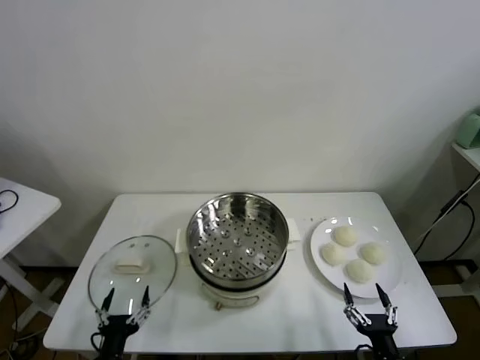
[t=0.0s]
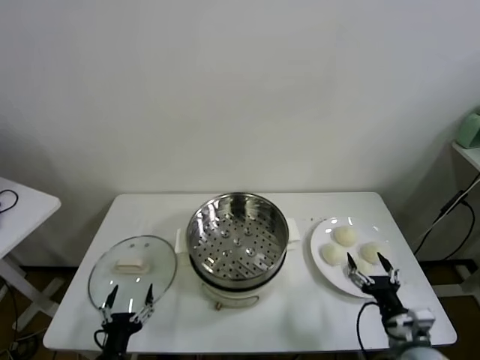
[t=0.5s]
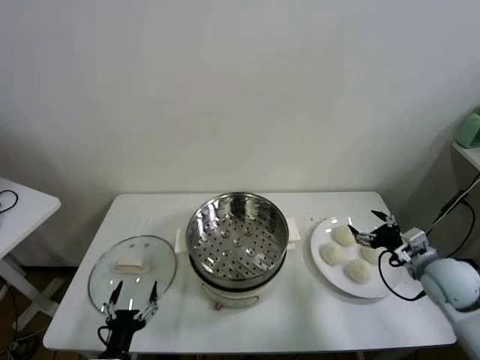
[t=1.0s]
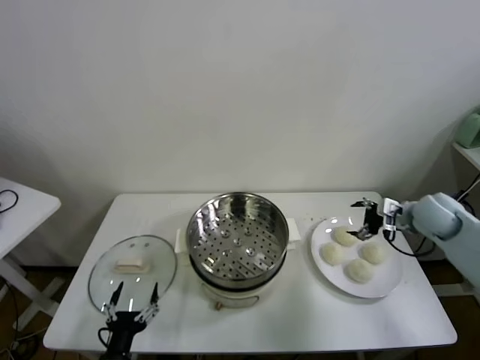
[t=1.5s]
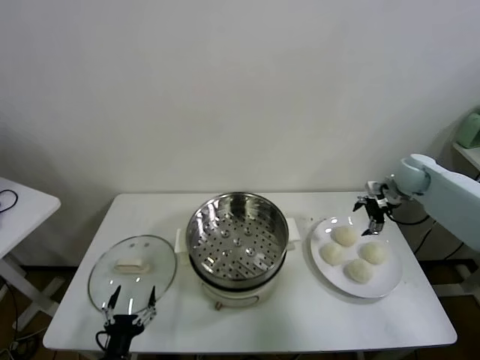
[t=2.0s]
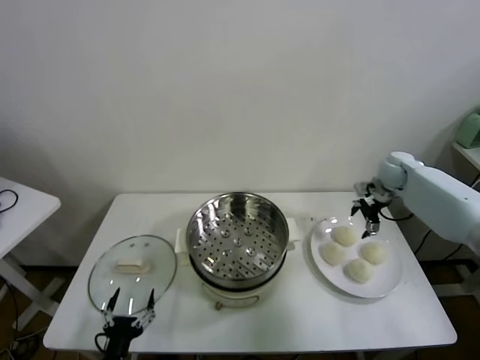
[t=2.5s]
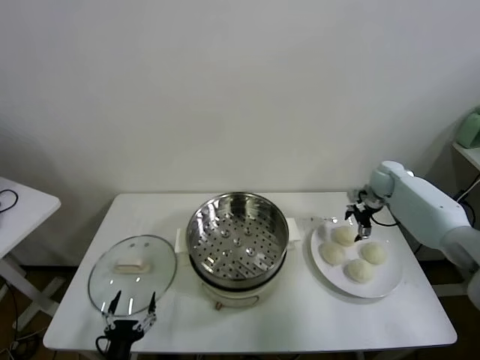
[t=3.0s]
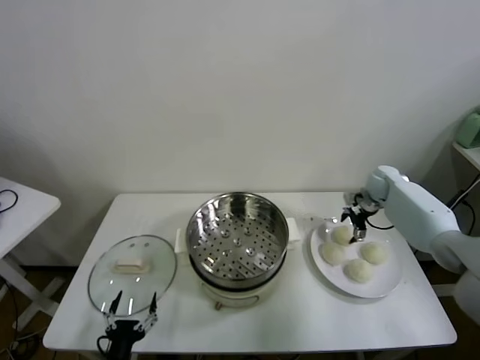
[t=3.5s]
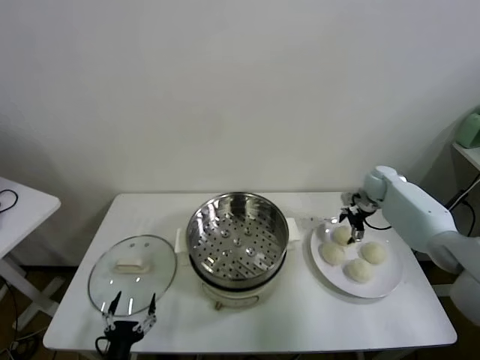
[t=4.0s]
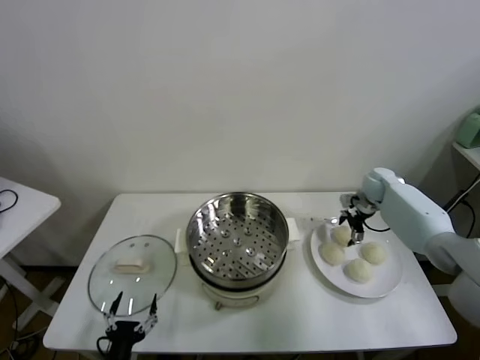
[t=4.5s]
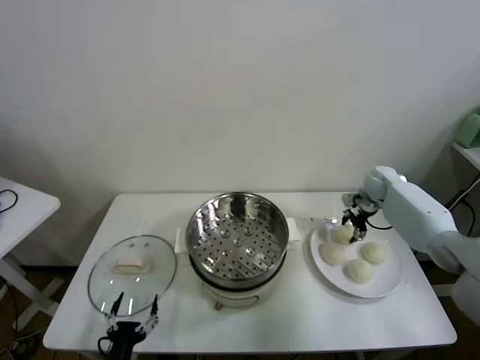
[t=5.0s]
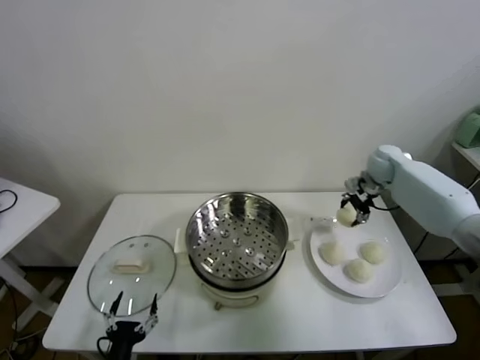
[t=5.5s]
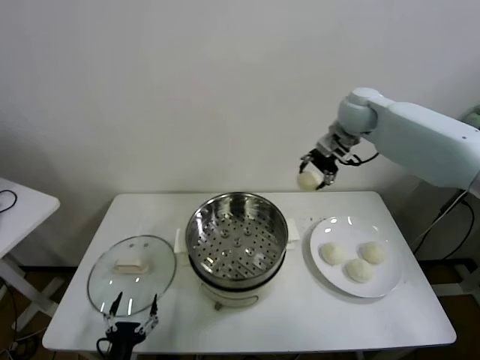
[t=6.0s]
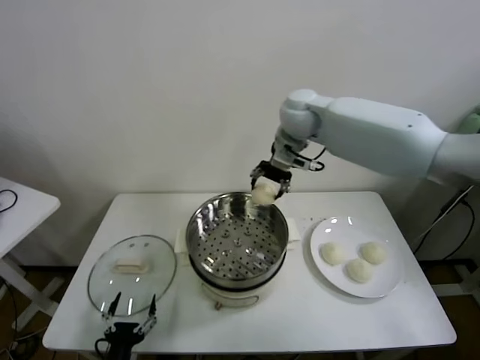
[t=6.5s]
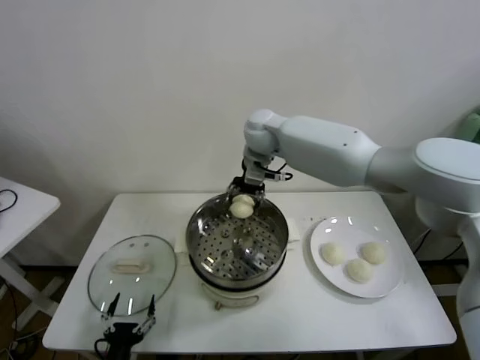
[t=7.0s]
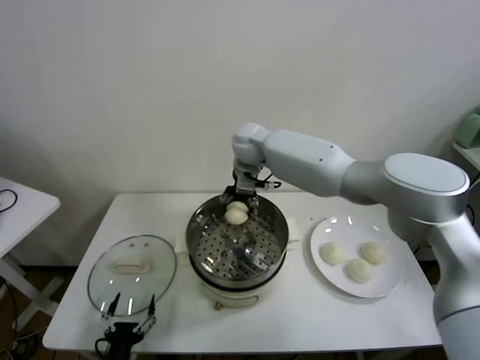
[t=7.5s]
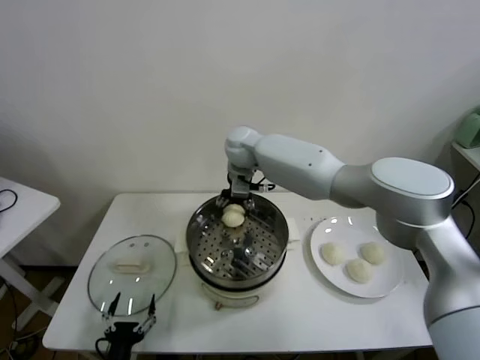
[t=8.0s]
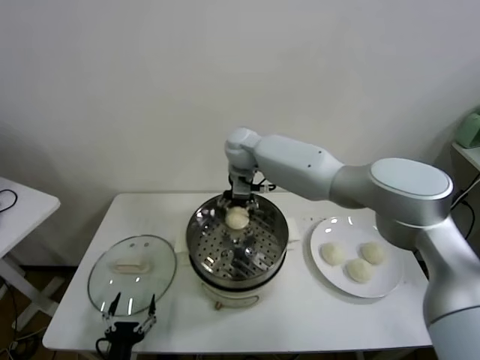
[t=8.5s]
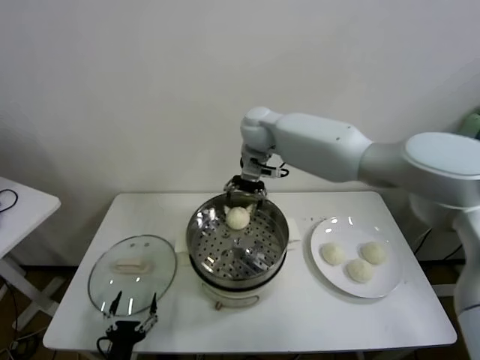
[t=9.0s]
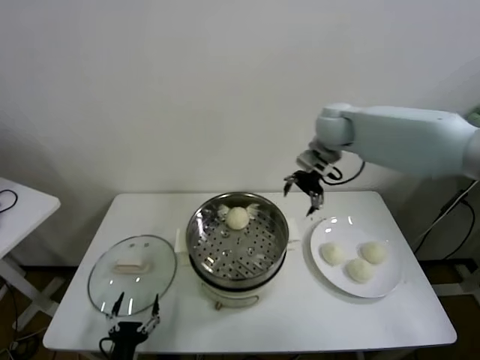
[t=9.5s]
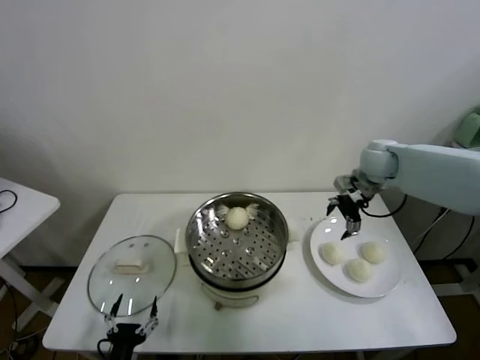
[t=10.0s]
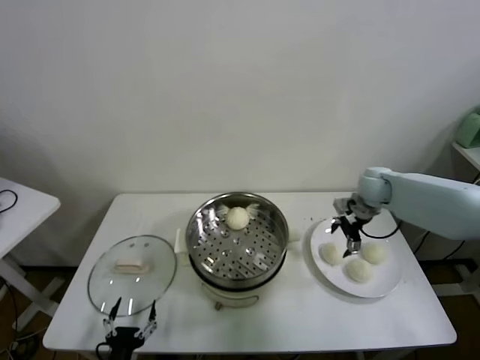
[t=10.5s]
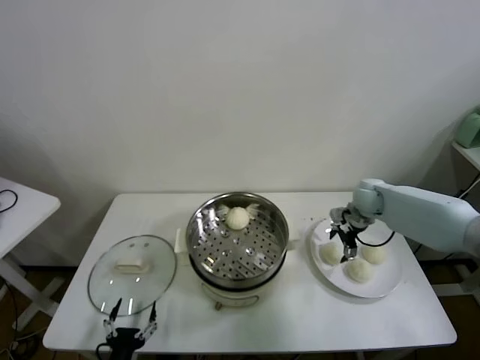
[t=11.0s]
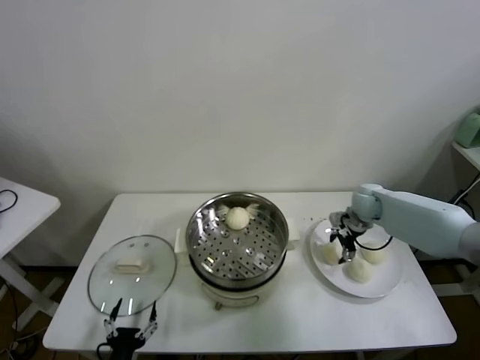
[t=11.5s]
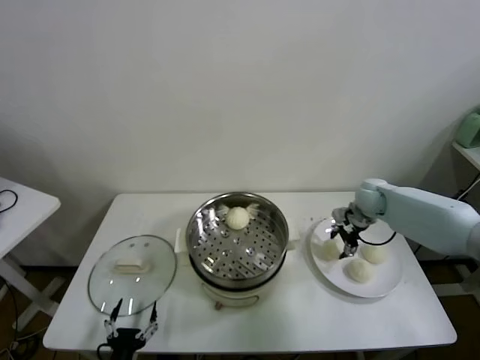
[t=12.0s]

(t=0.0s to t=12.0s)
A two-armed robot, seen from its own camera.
Task of the whole recording: take steamed baozi put them in steamer.
Step, t=0.0s - t=4.5s: Grasp the baozi in the plate with right gripper.
Step, t=5.0s - t=8.5s: Place the baozi on the steamer with right gripper.
Step, t=9.0s - t=11.5s: Grasp the baozi in the plate with right gripper.
t=2.0s - t=4.0s: The right gripper moves downward, some 10 cm.
t=4.0s - t=6.0s: The right gripper goes about 30 cm upward and to the left, and closes up.
t=6.0s - t=8.0s: The right gripper heads to the left and downward, covering some 25 cm.
t=8.0s - t=10.0s: The right gripper heads to the right, covering some 35 cm, and opens up.
t=10.0s - t=12.0s: The right gripper heads downward, covering approximately 10 cm, and closes its fingers.

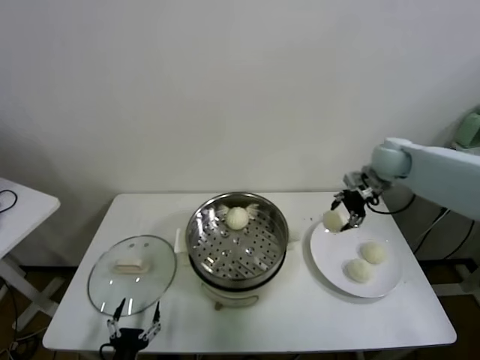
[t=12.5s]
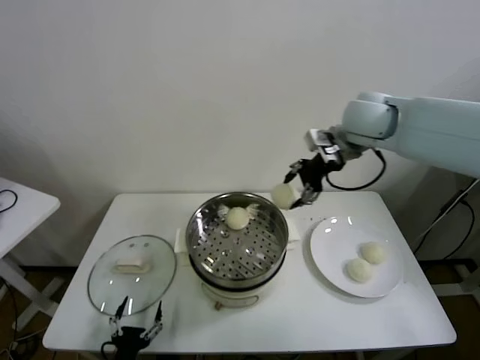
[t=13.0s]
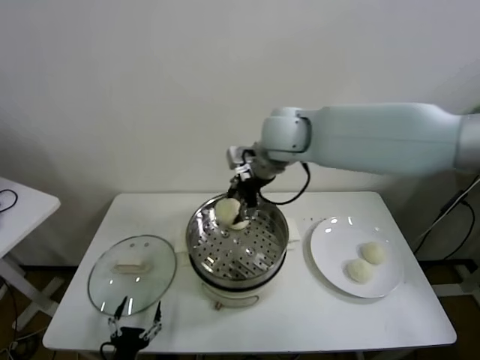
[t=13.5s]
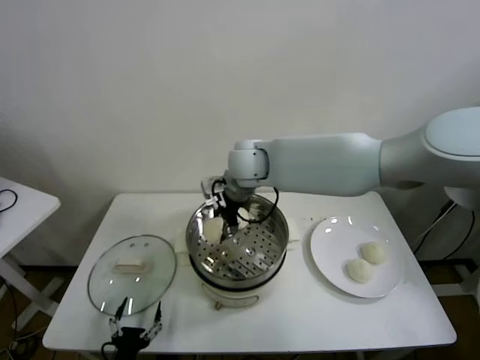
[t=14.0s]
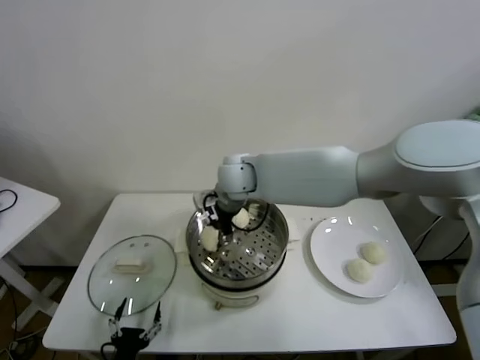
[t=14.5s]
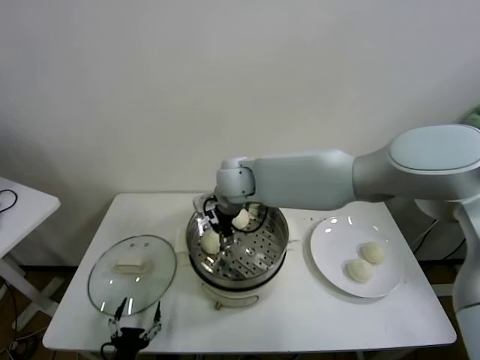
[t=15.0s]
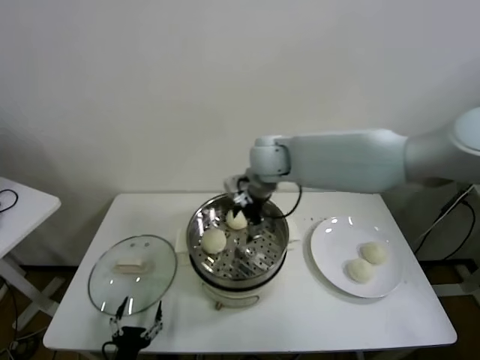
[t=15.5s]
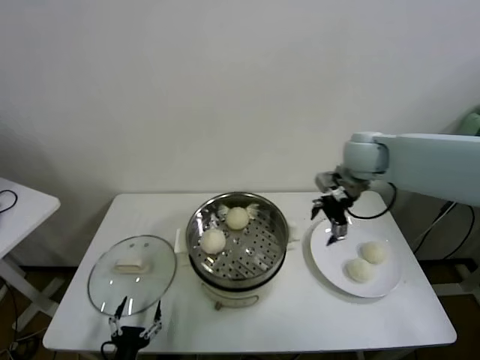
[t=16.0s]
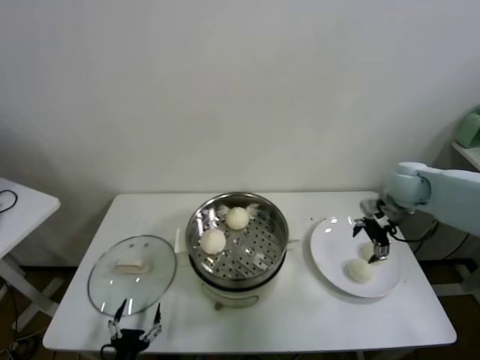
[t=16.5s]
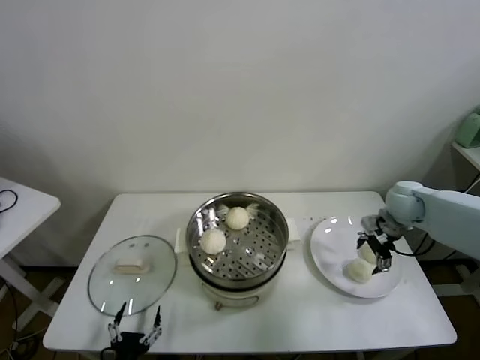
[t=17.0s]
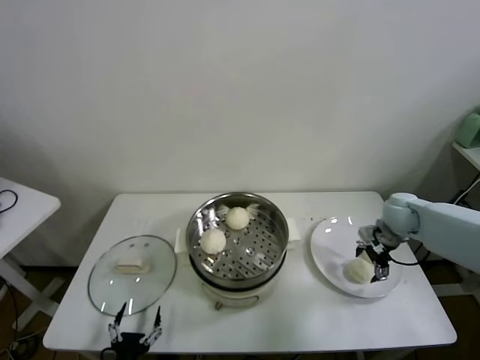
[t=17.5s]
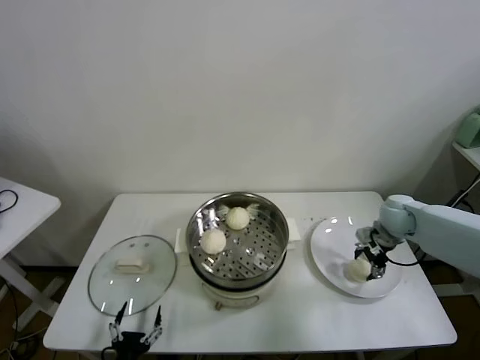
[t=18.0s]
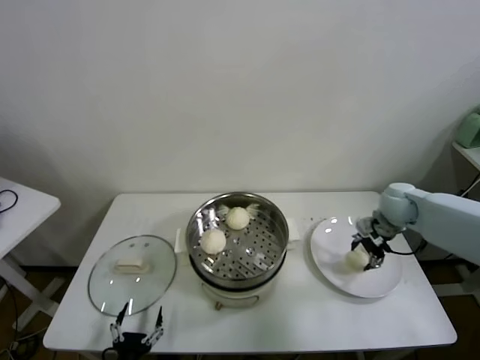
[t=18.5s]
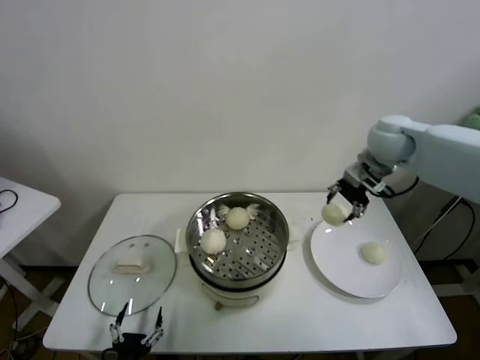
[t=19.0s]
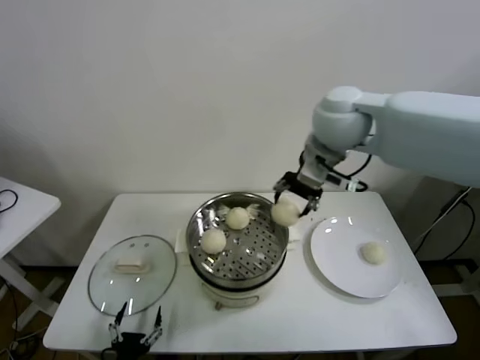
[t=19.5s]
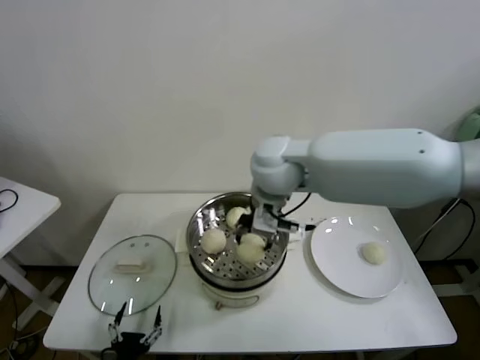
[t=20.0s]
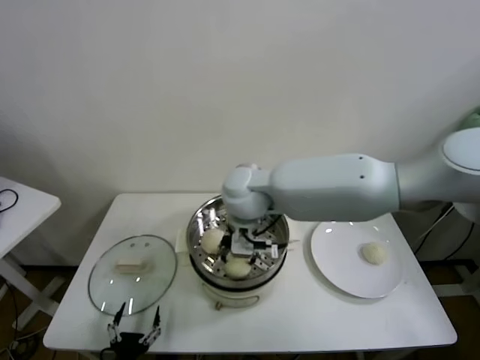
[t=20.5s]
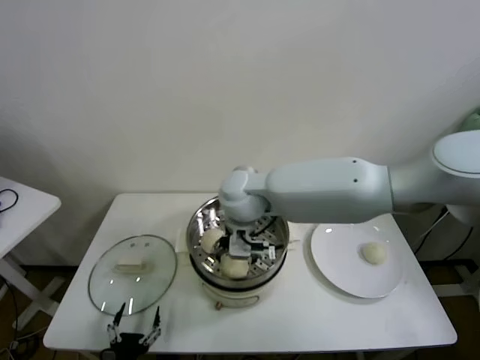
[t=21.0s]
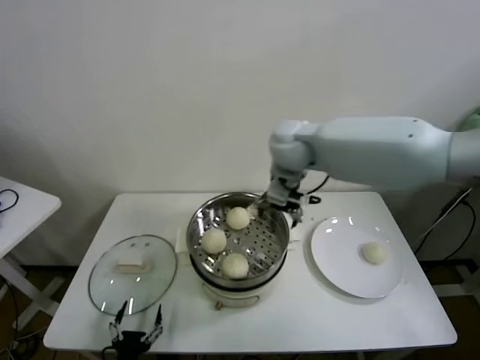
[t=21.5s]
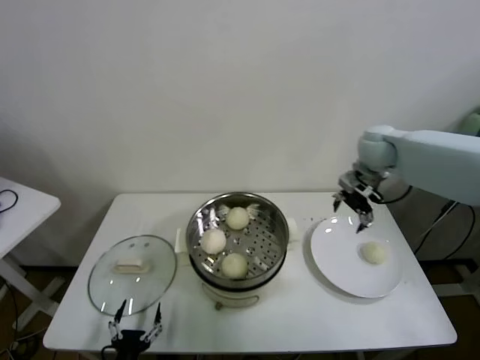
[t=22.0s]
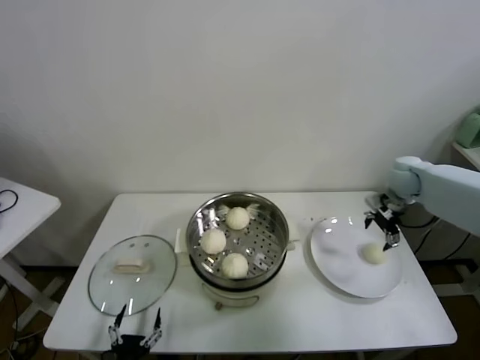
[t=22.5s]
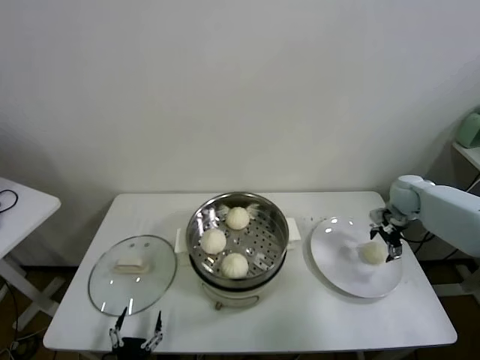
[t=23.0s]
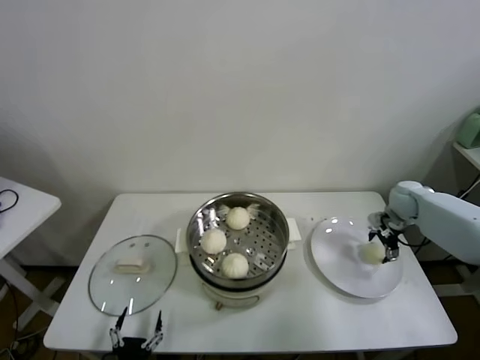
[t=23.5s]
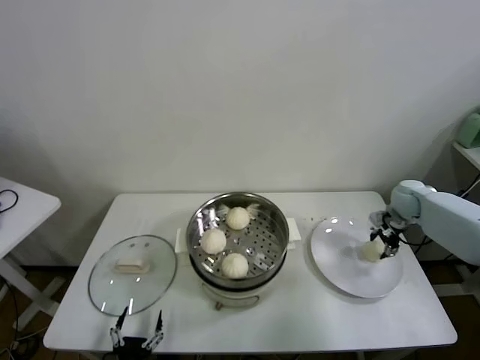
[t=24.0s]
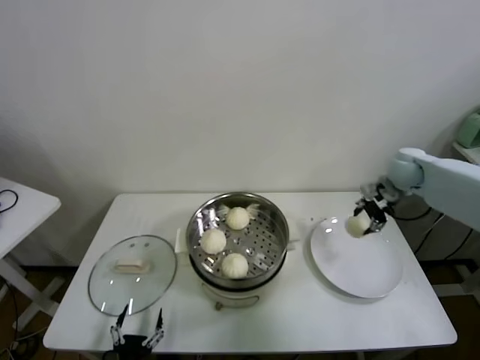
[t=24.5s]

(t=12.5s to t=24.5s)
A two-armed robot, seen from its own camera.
Task of the whole recording: take steamed baozi put them in steamer.
Step, t=12.5s - t=15.0s: Place the baozi on the steamer with right gripper.
Step, t=15.5s - t=18.0s: Grasp the baozi in the plate with right gripper.
Step, t=18.5s - t=20.5s: Place the baozi on the steamer with right gripper.
Step, t=21.5s - t=23.5s: Grasp the baozi in the plate with right gripper.
t=12.5s - t=14.5s: The right gripper shifts roughly 35 cm to the left.
t=14.5s - t=16.5s: The right gripper goes some 40 cm to the right, and opens.
t=16.5s - t=18.5s: The right gripper travels downward by roughly 5 cm, and closes.
t=18.5s - t=20.5s: The right gripper shifts roughly 35 cm to the left.
t=20.5s - t=22.5s: The right gripper heads to the right, covering roughly 40 cm, and opens up.
t=22.5s - t=24.5s: The right gripper travels downward and back again, approximately 10 cm each way, and closes up.

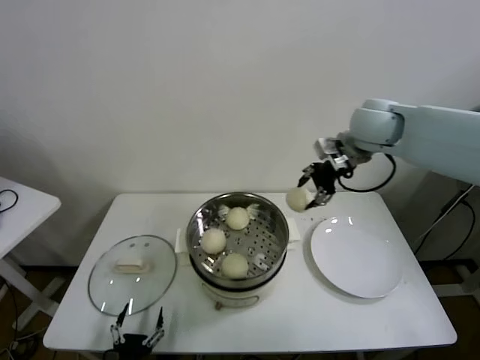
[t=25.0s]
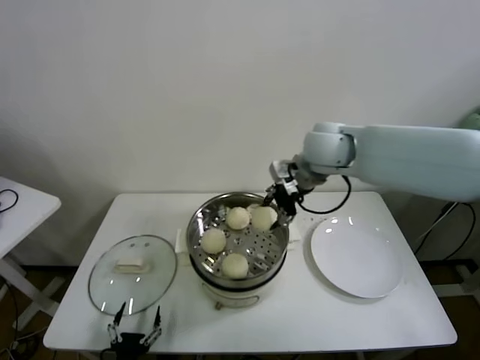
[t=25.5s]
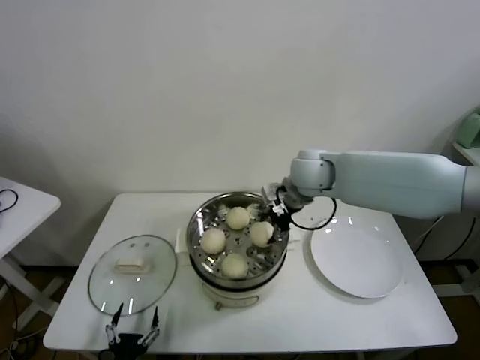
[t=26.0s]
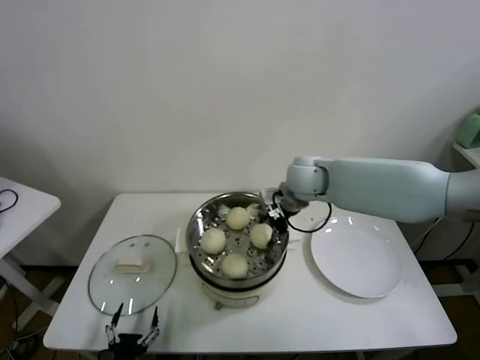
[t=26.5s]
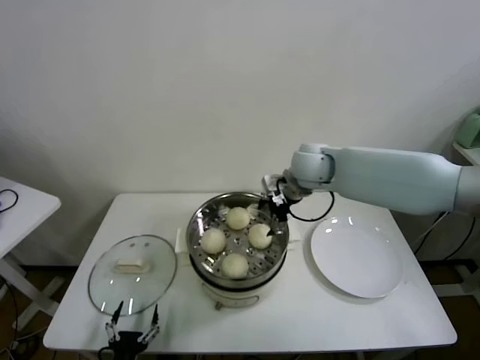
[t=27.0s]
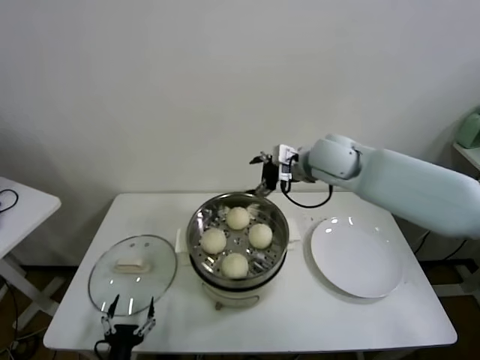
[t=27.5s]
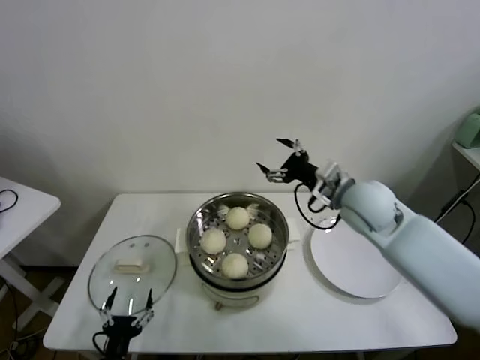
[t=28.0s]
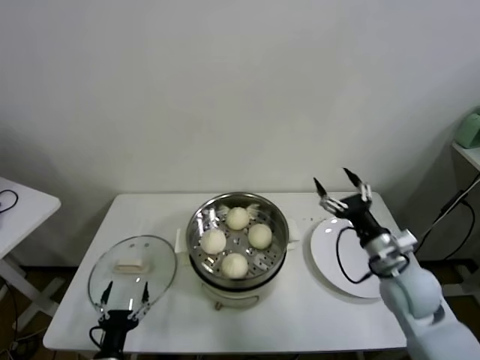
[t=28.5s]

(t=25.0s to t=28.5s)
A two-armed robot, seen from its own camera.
Task of the whole recording: take steamed baozi put them in steamer.
Step, t=25.0s - t=26.5s: Place the baozi on the steamer with right gripper.
t=25.0s - t=27.0s: The right gripper heads to the left and downward, covering some 15 cm, and opens up.
t=27.0s - t=28.5s: The right gripper shifts approximately 30 cm backward, to the right and downward.
